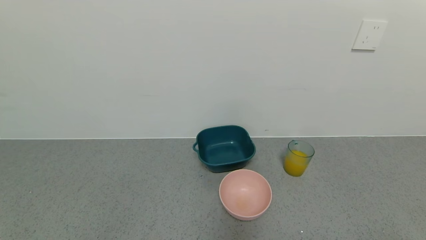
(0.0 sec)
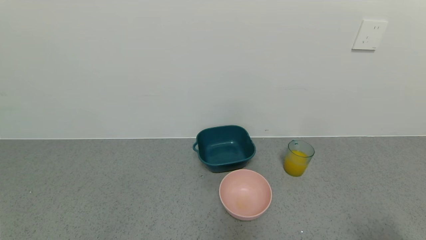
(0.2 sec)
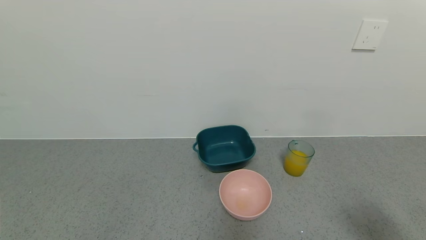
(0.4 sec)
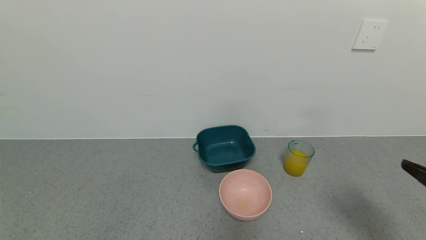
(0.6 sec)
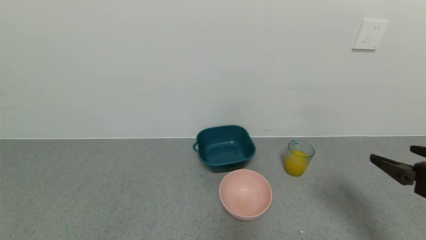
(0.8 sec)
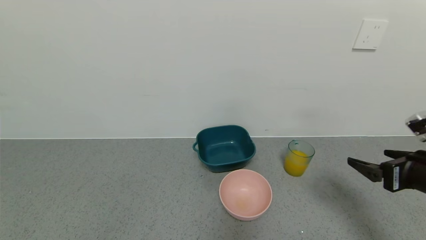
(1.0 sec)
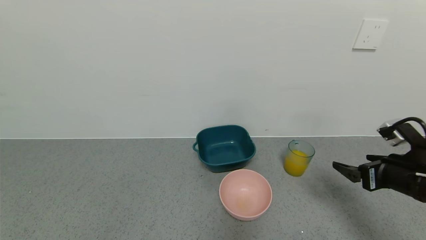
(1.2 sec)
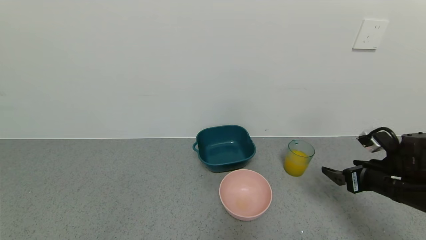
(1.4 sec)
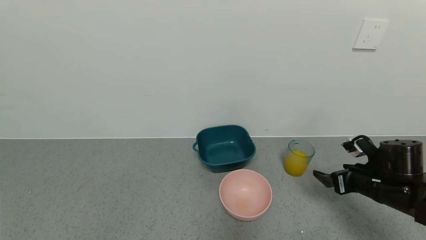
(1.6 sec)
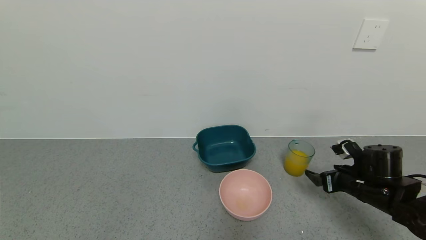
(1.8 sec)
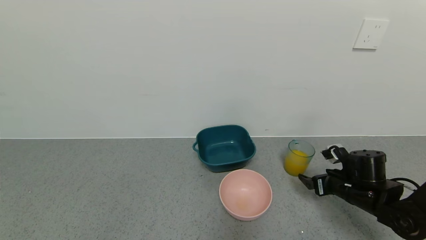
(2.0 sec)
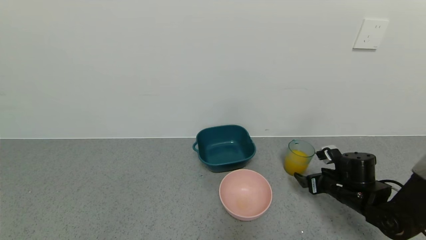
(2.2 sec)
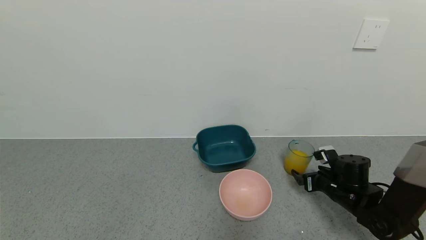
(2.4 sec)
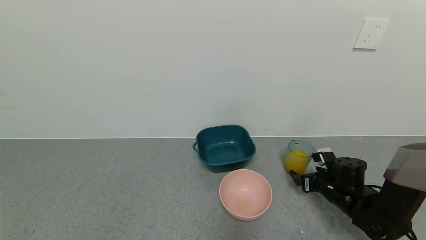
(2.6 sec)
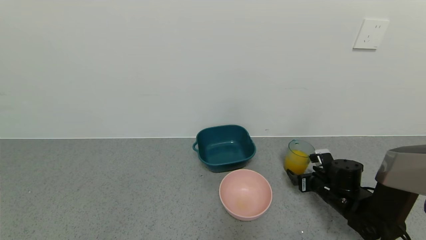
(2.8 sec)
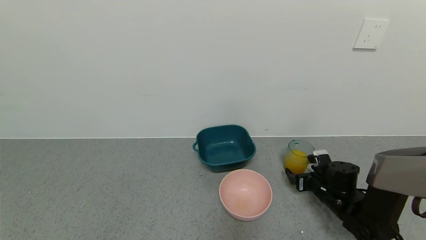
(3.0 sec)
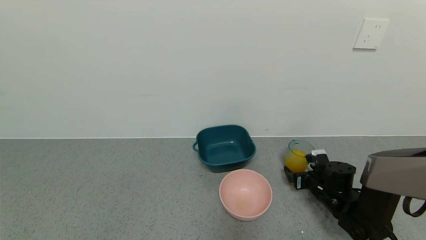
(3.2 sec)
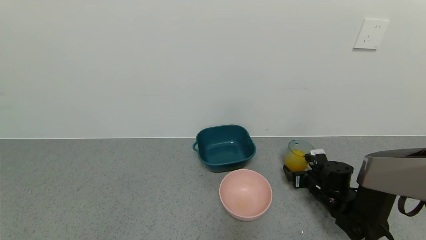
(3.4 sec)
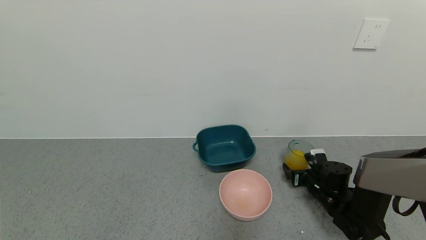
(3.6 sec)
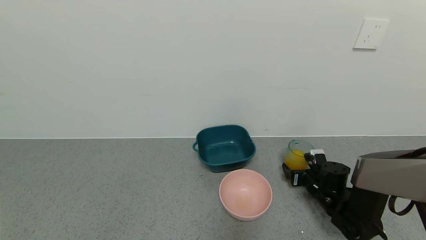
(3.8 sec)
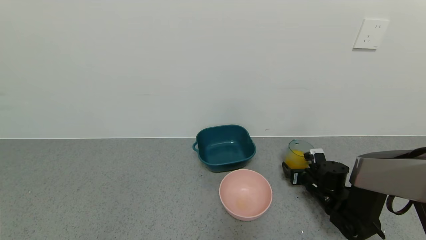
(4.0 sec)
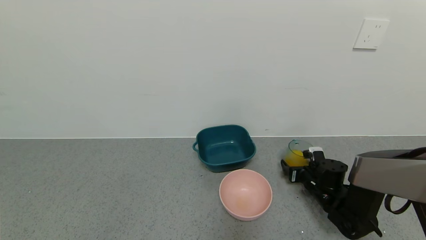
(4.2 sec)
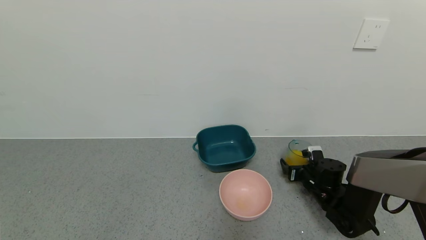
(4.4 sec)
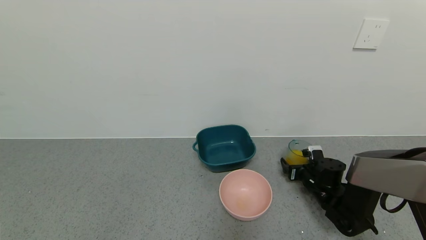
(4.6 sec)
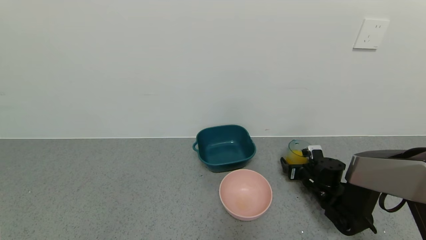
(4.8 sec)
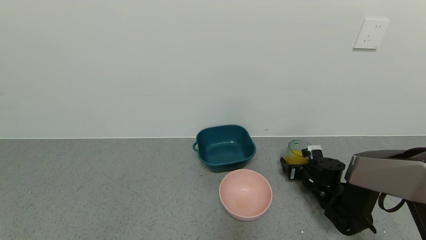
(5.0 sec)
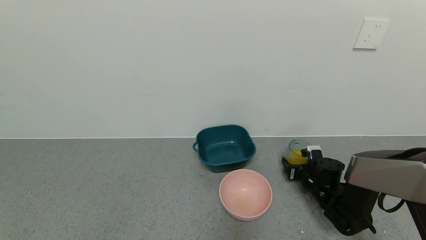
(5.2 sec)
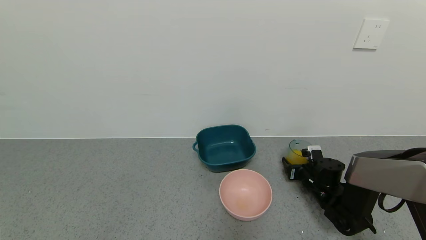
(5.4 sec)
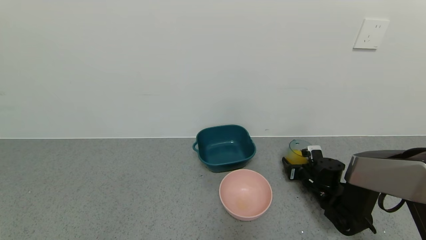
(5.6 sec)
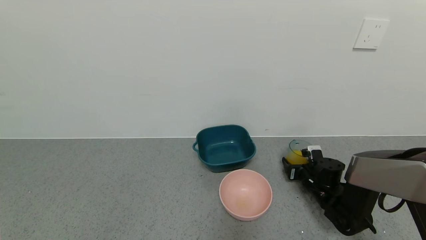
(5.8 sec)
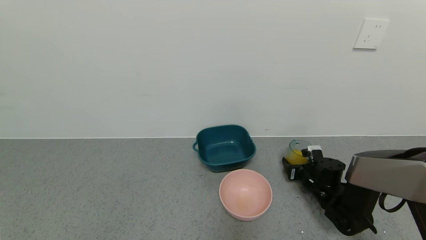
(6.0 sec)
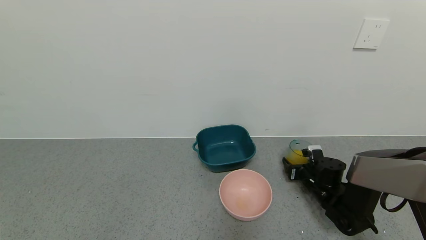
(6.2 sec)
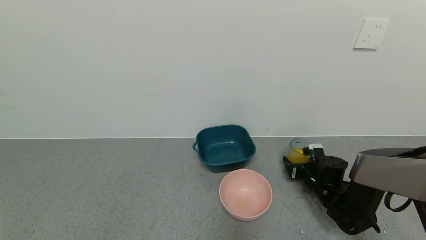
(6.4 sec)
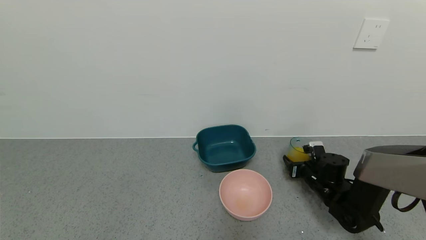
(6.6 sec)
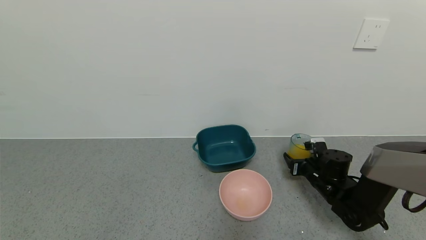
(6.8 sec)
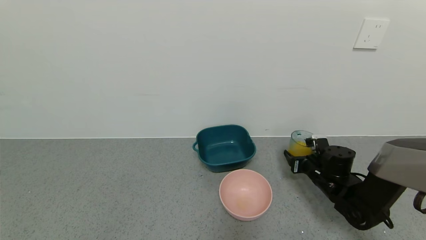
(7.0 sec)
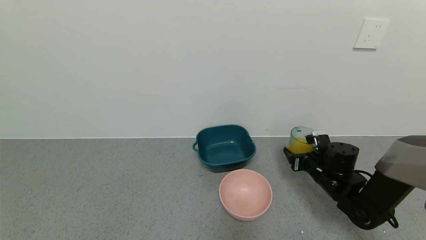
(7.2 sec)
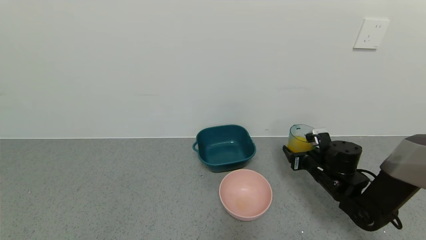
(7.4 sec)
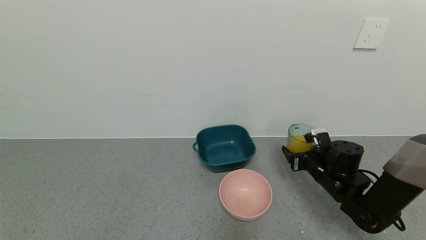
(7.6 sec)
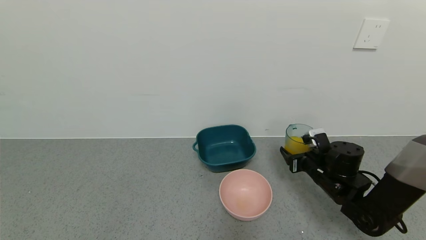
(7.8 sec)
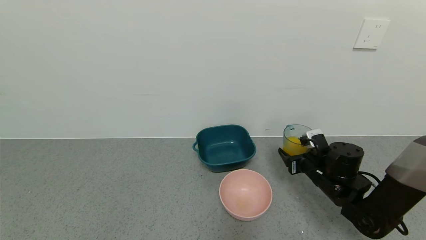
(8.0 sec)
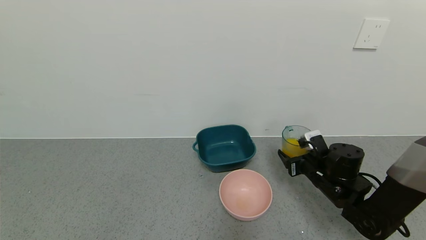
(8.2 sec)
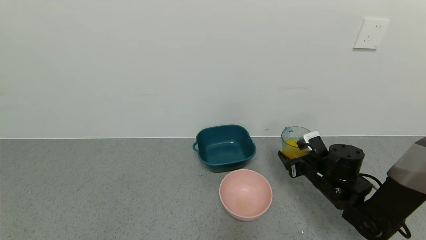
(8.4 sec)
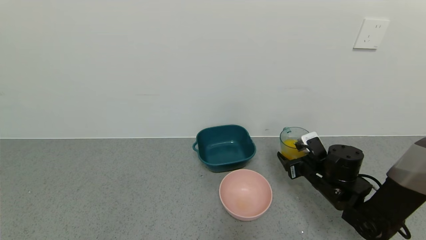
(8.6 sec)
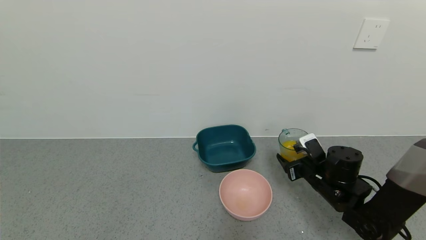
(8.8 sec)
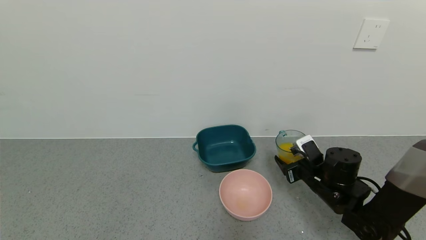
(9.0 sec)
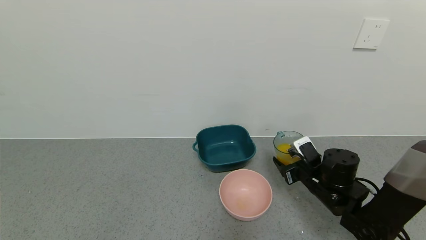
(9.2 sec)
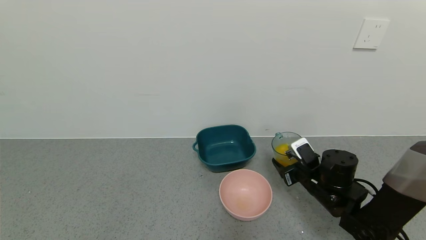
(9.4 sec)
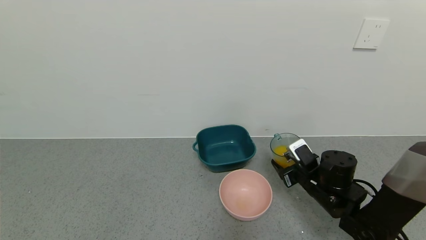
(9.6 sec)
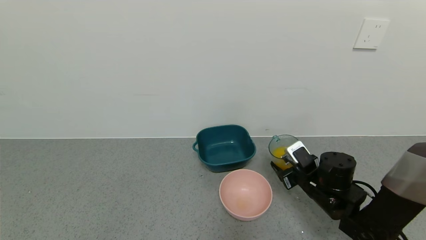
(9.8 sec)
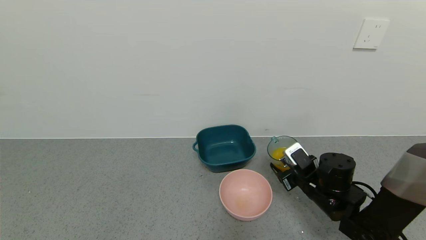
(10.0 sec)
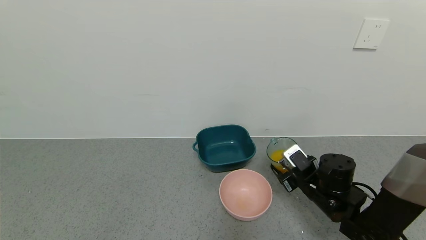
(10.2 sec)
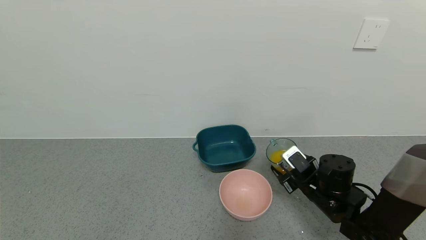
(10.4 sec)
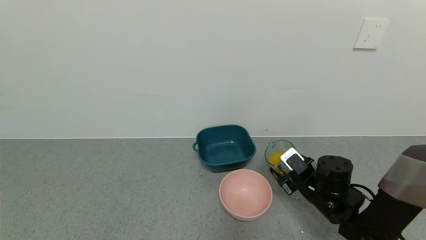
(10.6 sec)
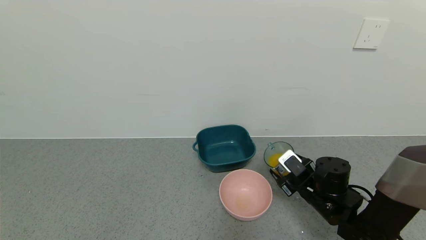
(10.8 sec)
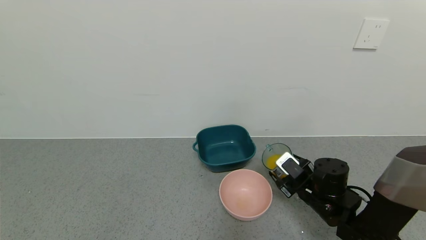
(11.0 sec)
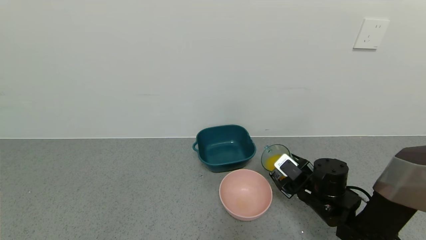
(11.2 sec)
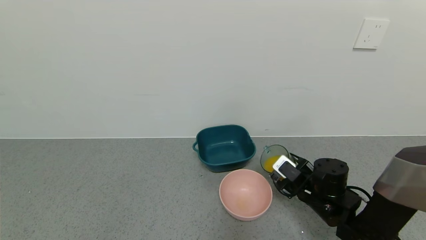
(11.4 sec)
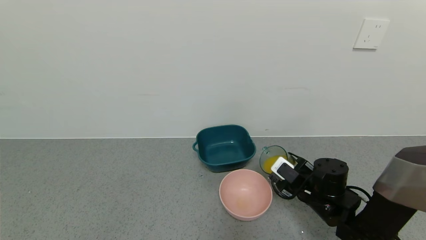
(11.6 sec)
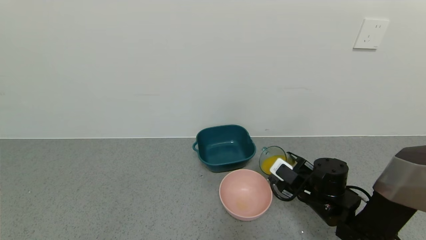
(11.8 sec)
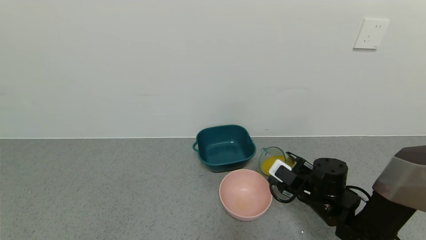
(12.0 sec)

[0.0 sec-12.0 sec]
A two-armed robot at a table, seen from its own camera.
Task of the whole recording: use a gripper to pick up the cup and pour the liquid into a bowl or tray.
Step, 0.0 sec to 6.2 sec: Grasp the glass of orange juice with the right gripper.
0.0 sec to 1.6 sec: The right gripper heads forward, covering some 25 cm.
1.6 sec to 3.0 sec: The right gripper goes about 10 cm downward and forward.
3.0 sec to 4.4 sec: The grippers stay close to where they were, moving slightly.
4.4 sec to 6.0 sec: The right gripper closes up.
6.0 sec to 7.6 sec: The right gripper is displaced upward by approximately 10 cm.
7.6 sec to 9.0 sec: The grippers make only small movements.
9.0 sec to 10.4 sec: There are only small adjustments of the grippers.

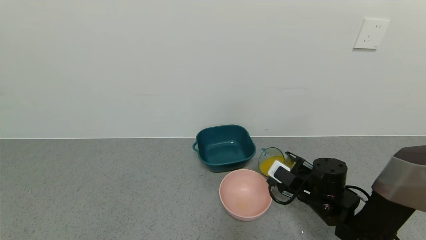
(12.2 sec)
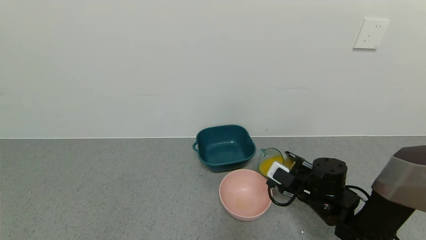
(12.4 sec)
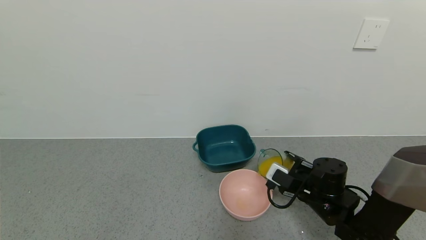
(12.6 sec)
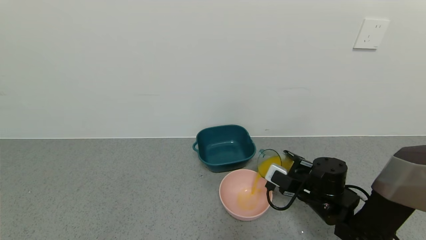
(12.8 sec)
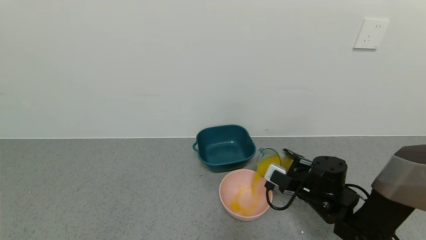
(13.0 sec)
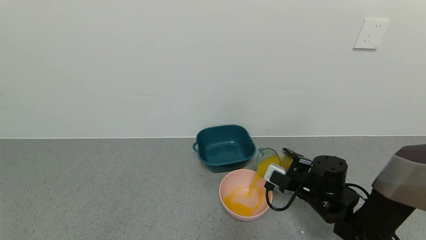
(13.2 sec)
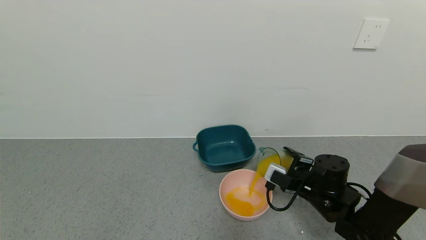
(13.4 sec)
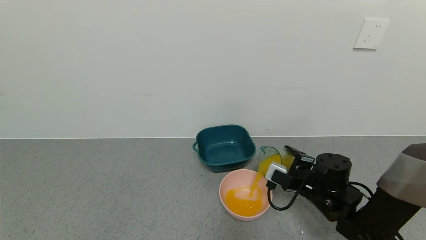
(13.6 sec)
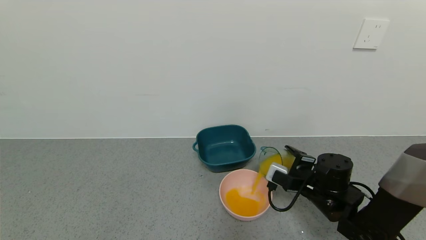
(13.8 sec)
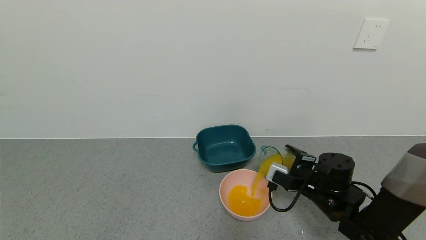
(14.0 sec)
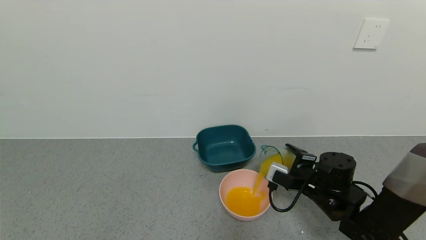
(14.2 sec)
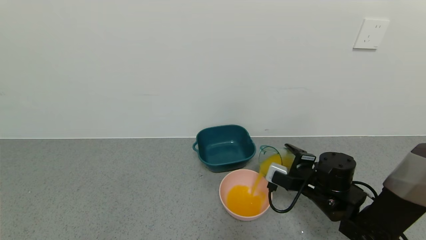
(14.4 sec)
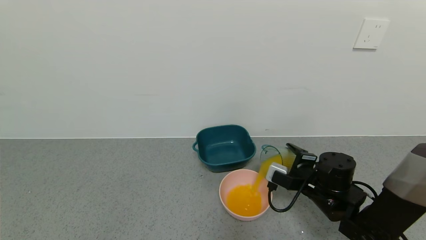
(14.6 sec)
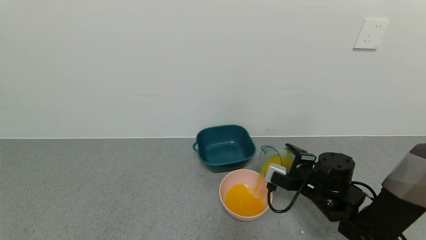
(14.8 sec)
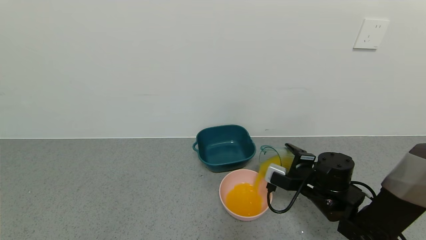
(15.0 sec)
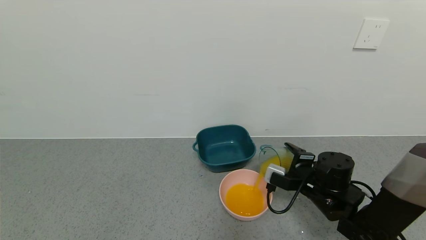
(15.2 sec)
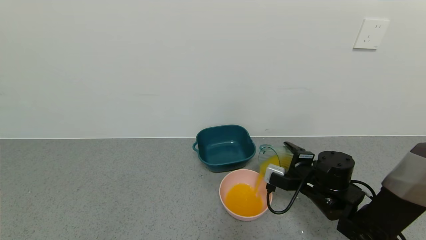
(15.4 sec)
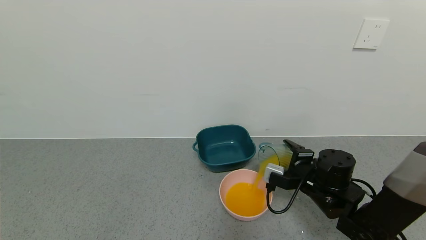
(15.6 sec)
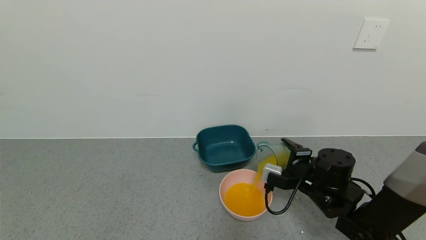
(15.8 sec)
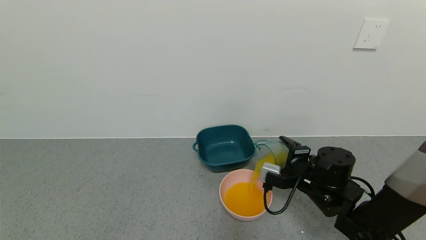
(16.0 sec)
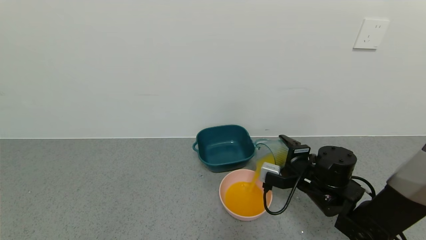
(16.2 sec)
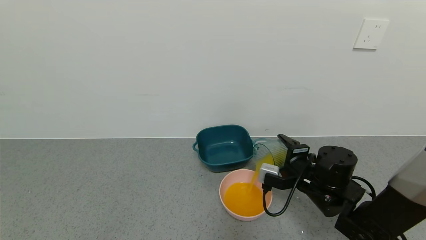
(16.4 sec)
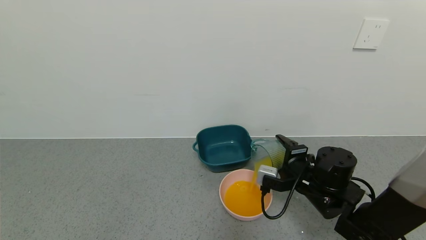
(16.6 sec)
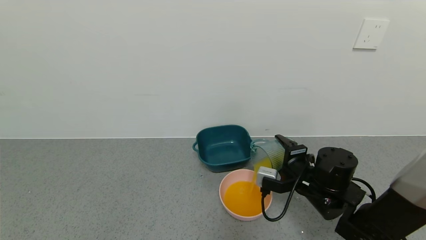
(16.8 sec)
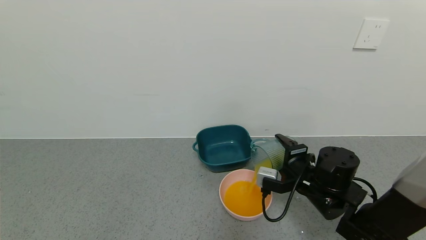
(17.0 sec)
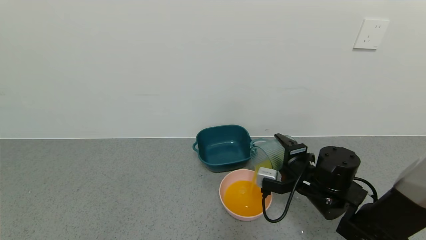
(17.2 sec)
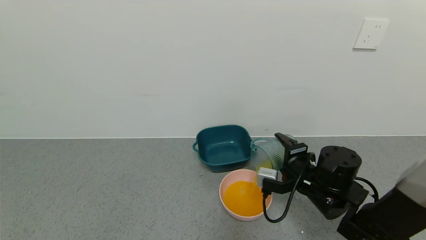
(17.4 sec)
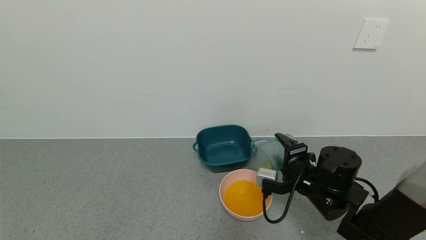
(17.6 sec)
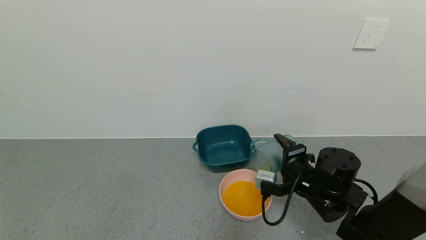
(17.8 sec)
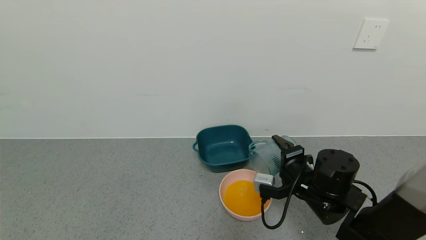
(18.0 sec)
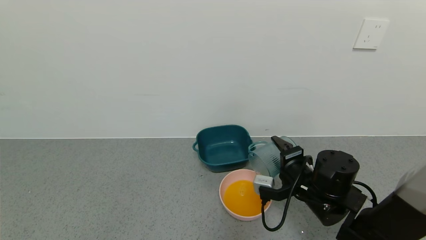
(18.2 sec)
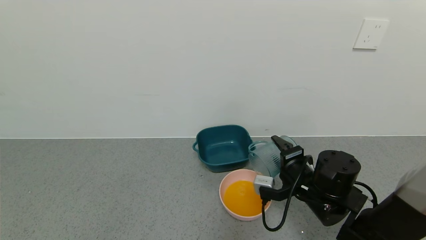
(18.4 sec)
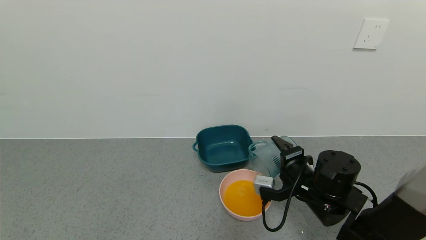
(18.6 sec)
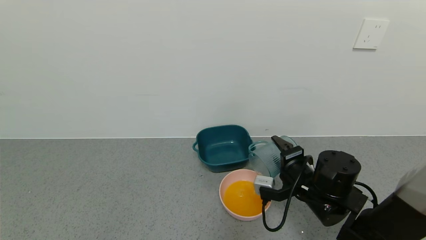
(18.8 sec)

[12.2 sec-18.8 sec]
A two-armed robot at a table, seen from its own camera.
Task of the whole recording: use a gripper to pick up the cup and pour the liquid into a bowl or tray.
12.2 sec to 13.8 sec: The grippers stay close to where they were, moving slightly.
13.8 sec to 15.4 sec: There are only small adjustments of the grippers.
15.4 sec to 17.2 sec: The grippers make only small movements.
17.2 sec to 18.8 sec: There are only small adjustments of the grippers.
